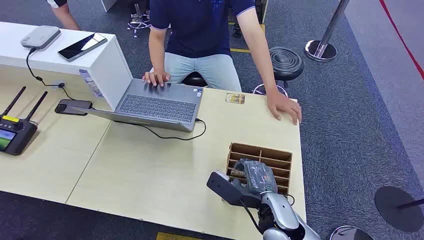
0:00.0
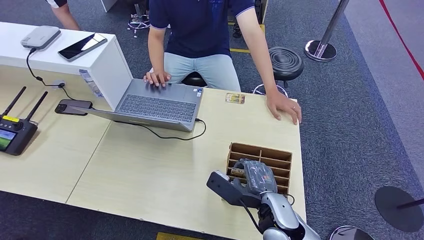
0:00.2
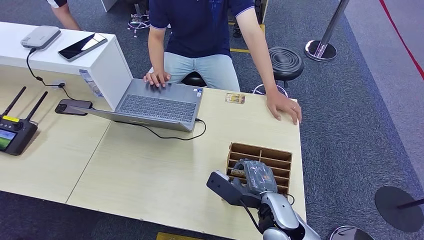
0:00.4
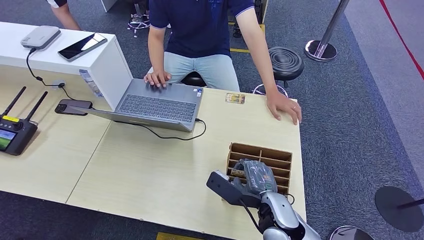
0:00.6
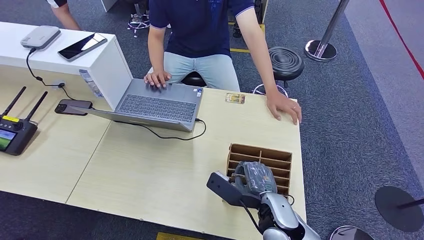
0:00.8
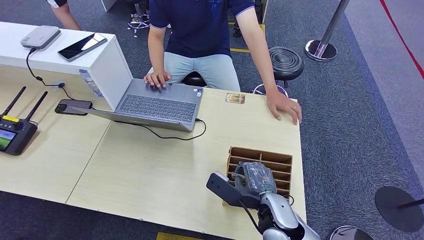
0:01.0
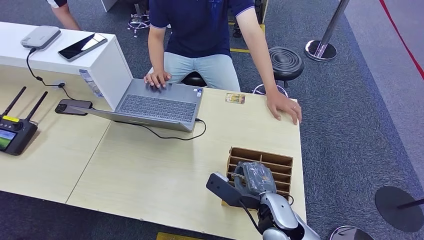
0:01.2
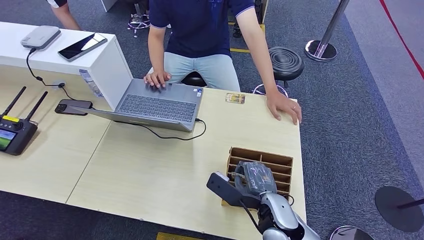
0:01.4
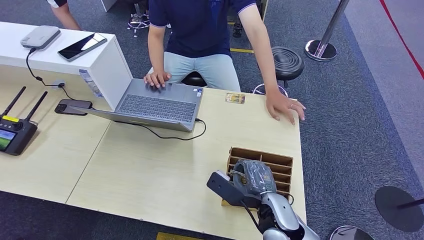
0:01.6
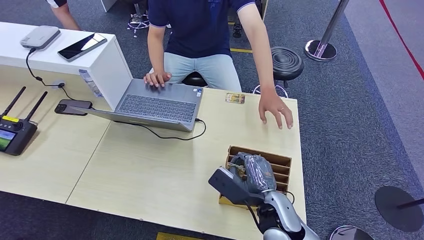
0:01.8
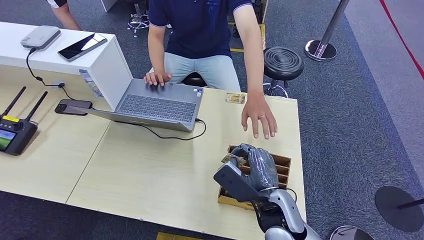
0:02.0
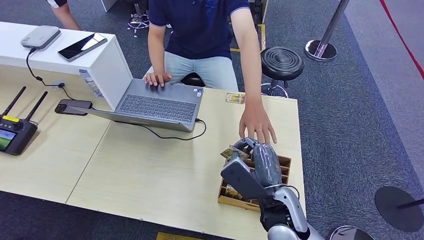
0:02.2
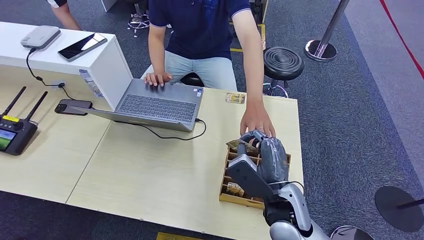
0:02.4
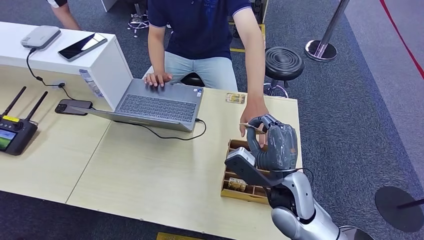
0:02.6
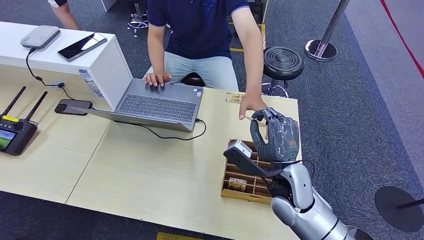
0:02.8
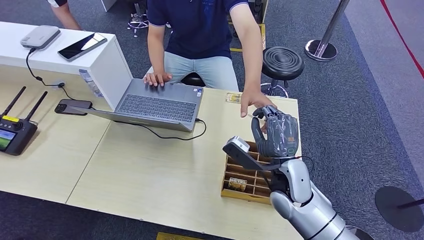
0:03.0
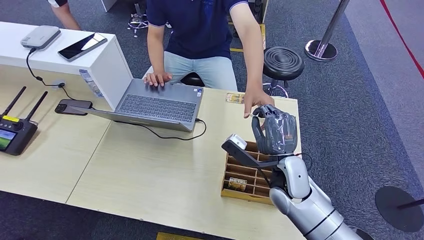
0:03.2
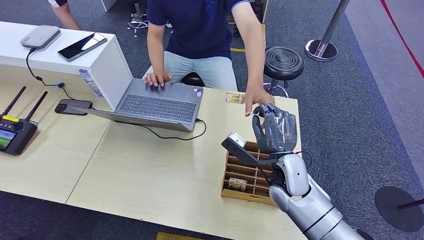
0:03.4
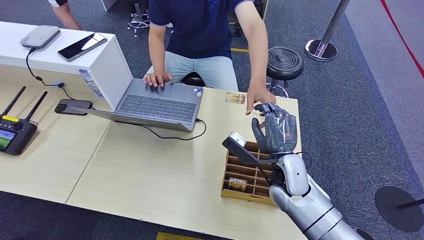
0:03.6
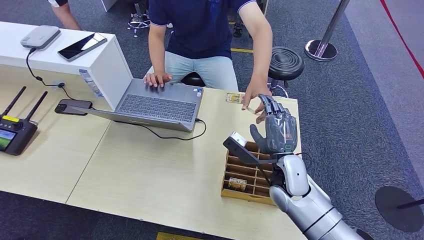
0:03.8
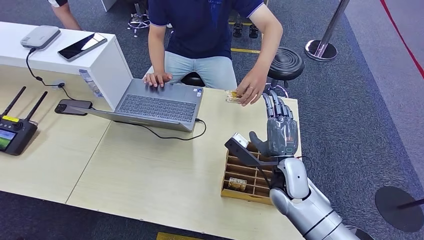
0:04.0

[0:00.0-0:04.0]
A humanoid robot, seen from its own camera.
Step, 0:00.0 to 0:02.2: Pick up the key card from the card box.
Step, 0:02.4 to 0:04.0: Hand the key card to the target.
0:01.4 to 0:02.6: The right hand goes approximately 5 cm upward.
0:02.6 to 0:04.0: The right hand shifts roughly 5 cm forward.
